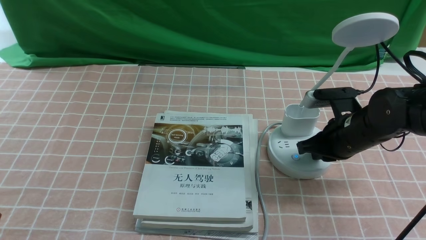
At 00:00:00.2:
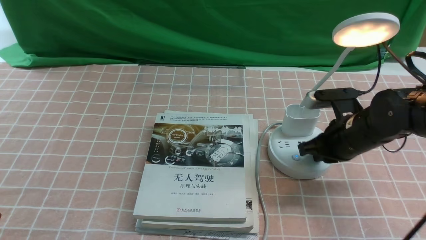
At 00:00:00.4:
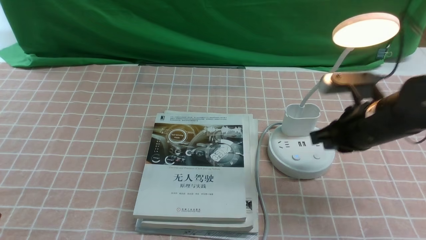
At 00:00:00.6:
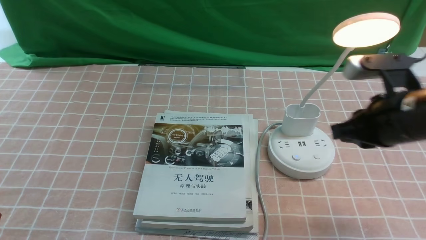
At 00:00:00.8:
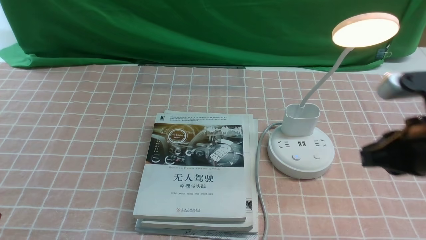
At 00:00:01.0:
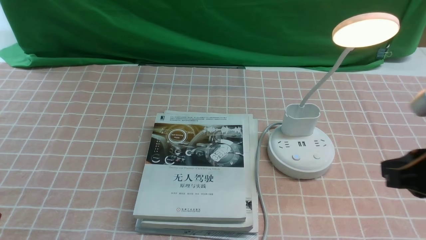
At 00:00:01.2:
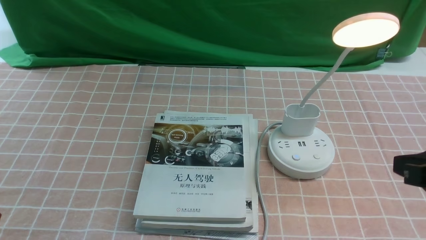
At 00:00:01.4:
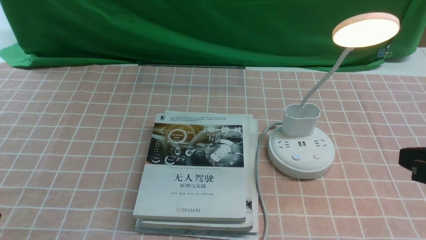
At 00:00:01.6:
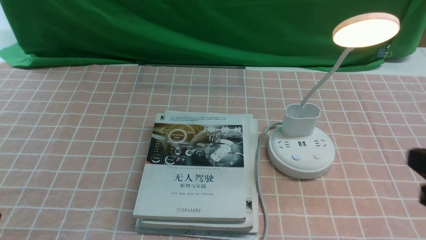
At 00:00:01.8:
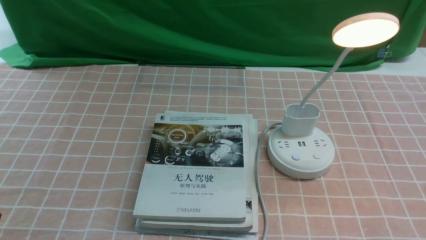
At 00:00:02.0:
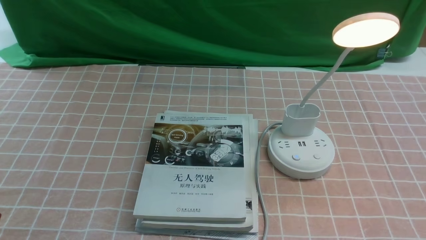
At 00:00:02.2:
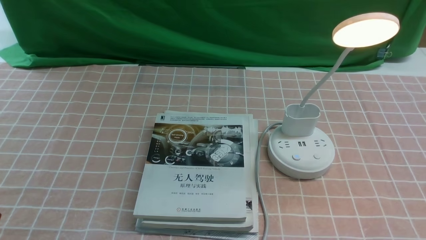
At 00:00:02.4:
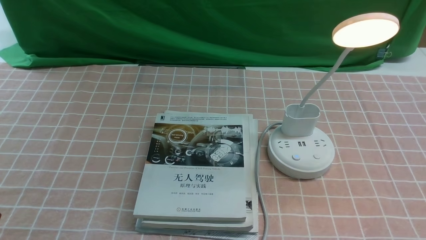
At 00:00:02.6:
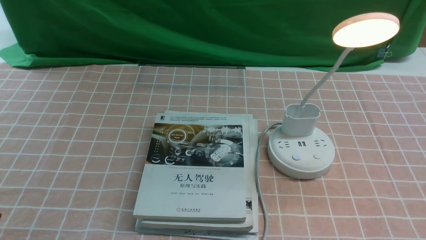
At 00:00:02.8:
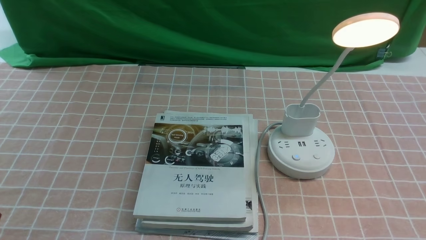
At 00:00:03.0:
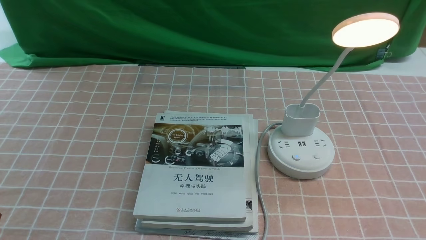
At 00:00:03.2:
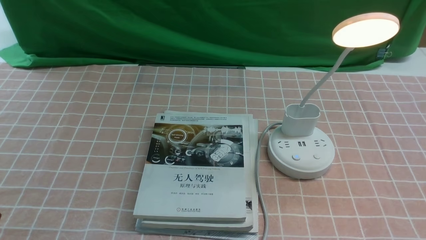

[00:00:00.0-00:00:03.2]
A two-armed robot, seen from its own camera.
00:00:00.0 to 00:00:01.6: The right gripper heads backward and upward, covering approximately 25 cm.
00:00:01.6 to 00:00:03.2: The right gripper moves downward and backward, some 10 cm.
